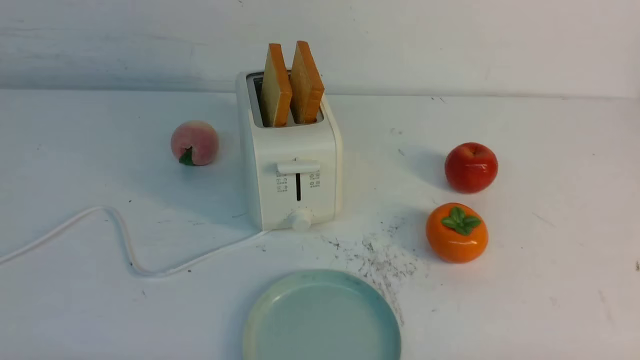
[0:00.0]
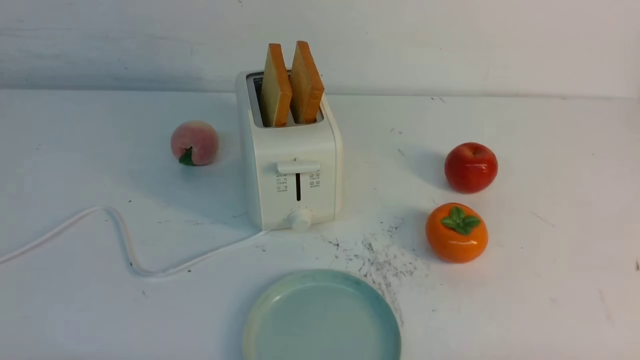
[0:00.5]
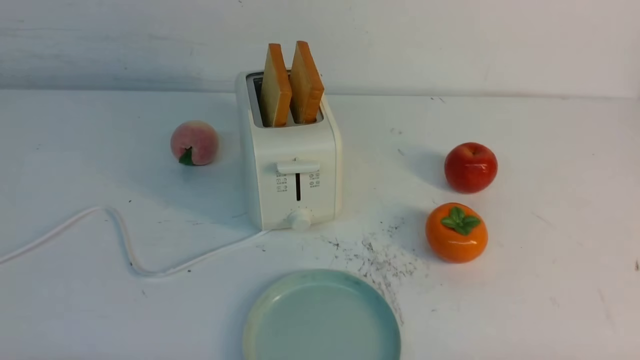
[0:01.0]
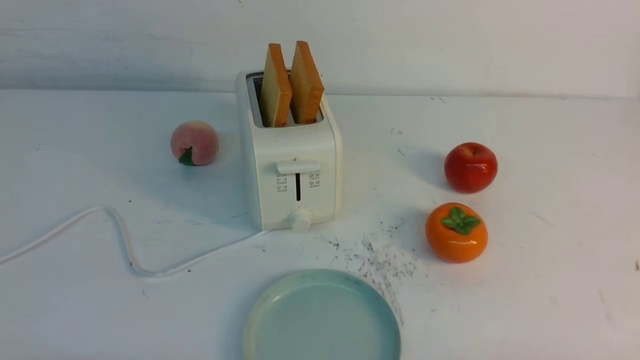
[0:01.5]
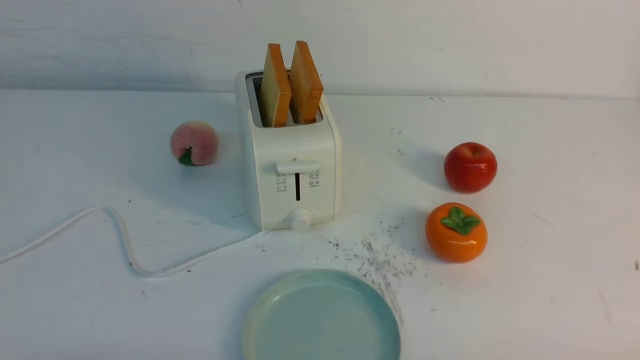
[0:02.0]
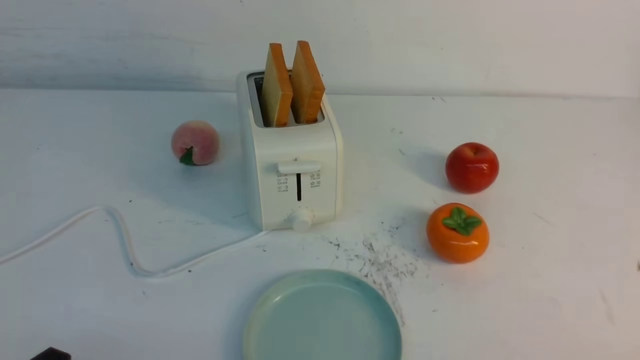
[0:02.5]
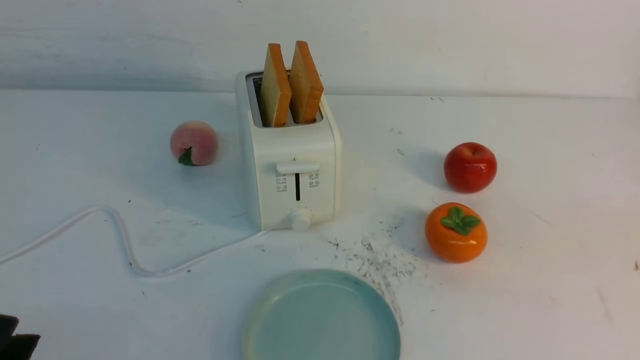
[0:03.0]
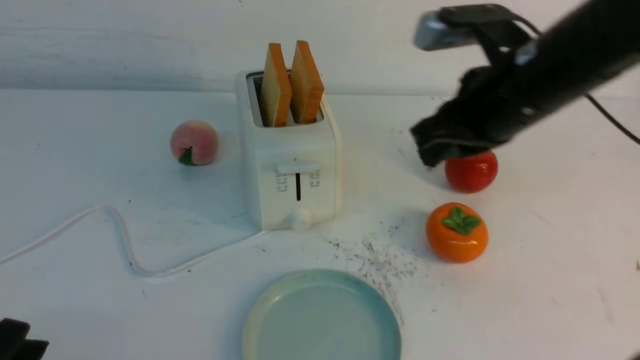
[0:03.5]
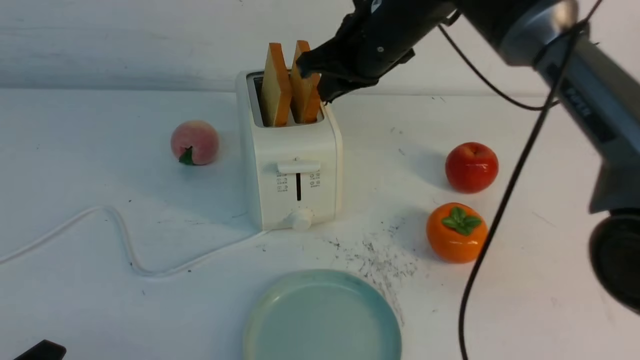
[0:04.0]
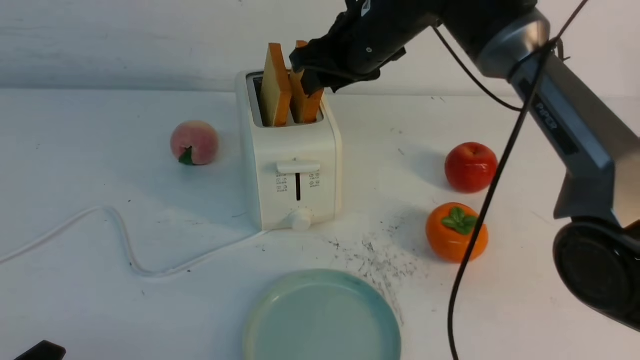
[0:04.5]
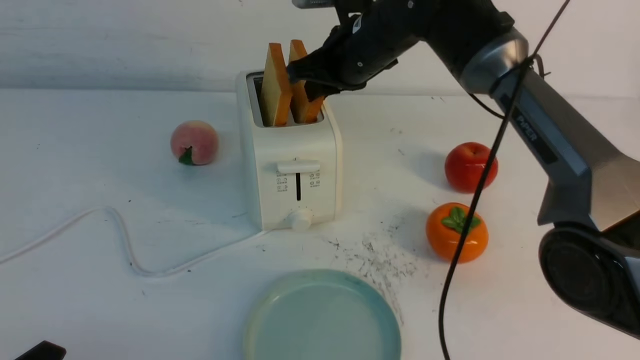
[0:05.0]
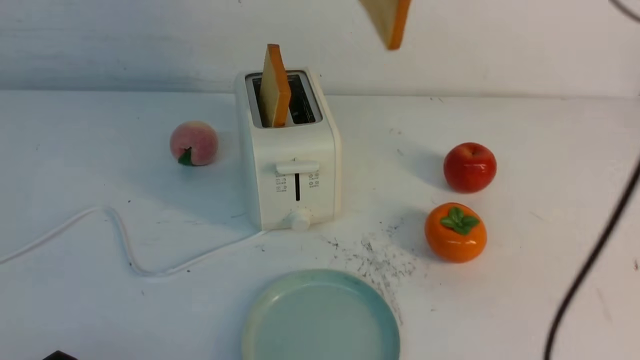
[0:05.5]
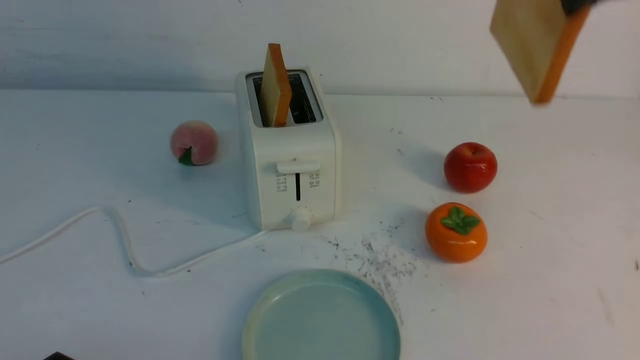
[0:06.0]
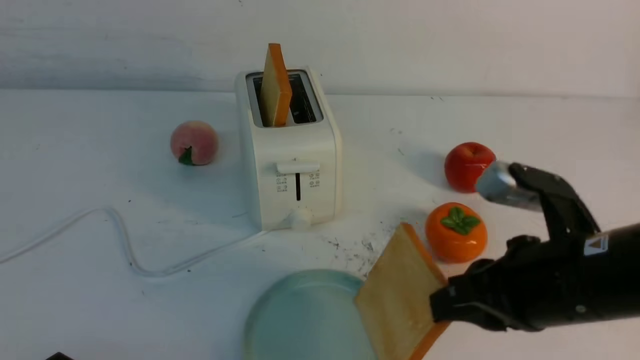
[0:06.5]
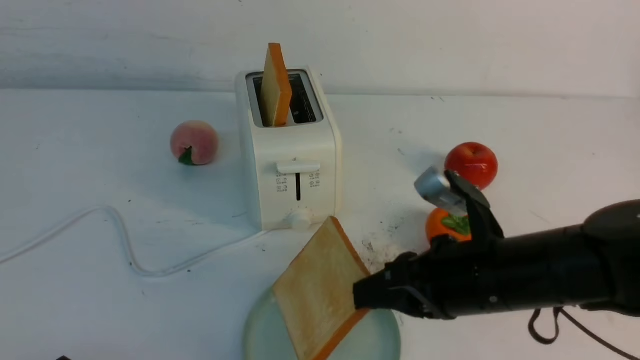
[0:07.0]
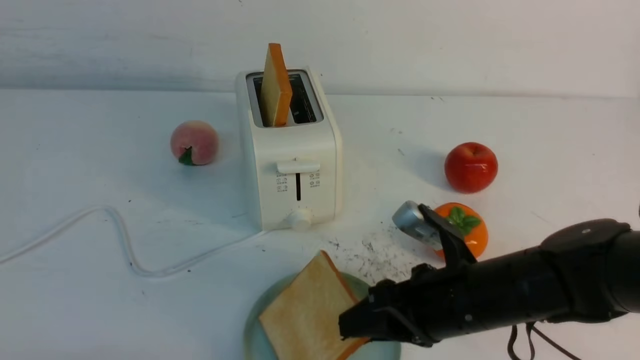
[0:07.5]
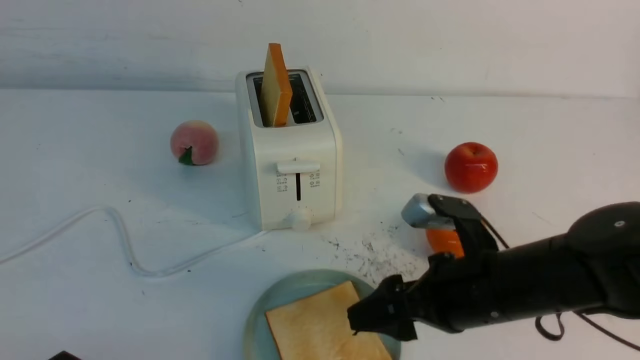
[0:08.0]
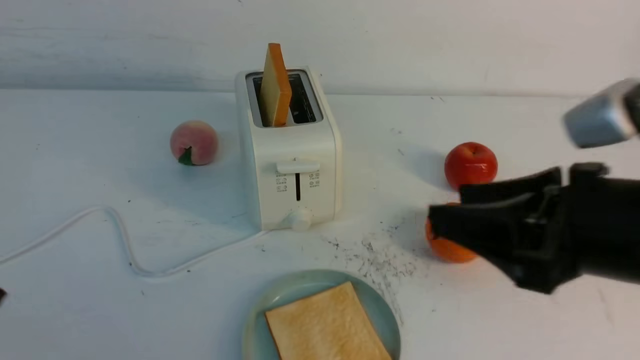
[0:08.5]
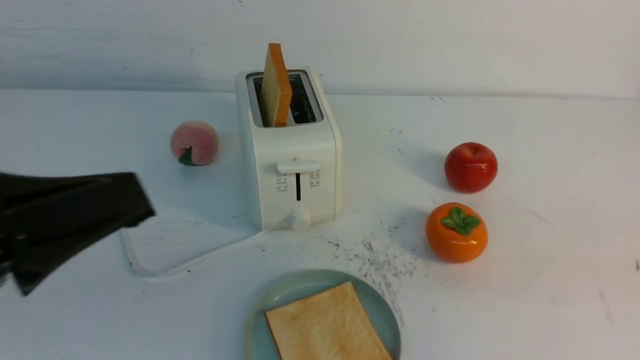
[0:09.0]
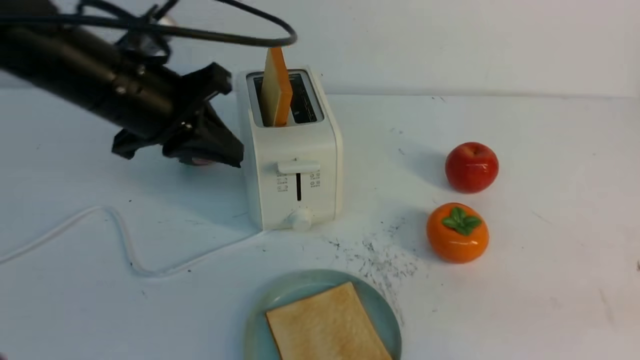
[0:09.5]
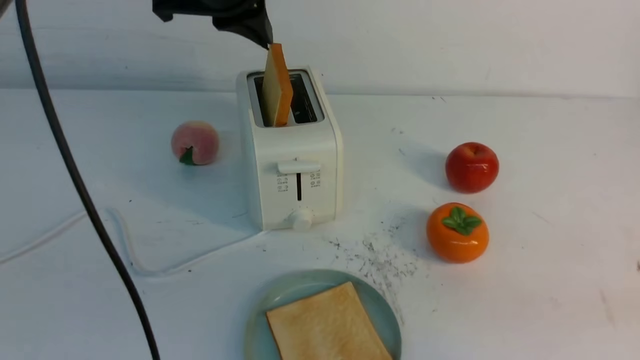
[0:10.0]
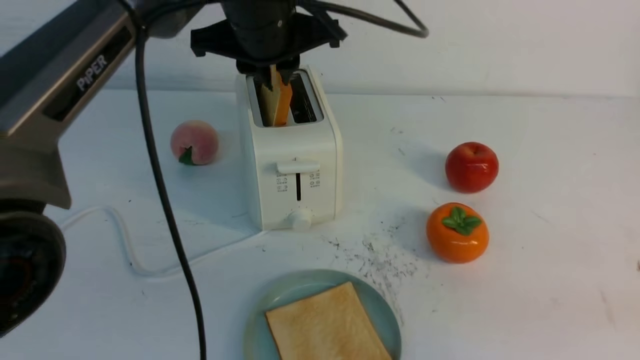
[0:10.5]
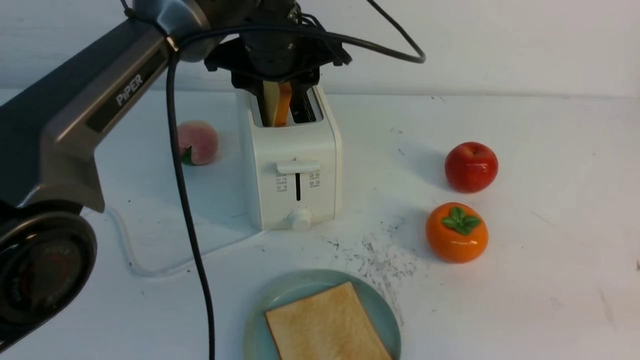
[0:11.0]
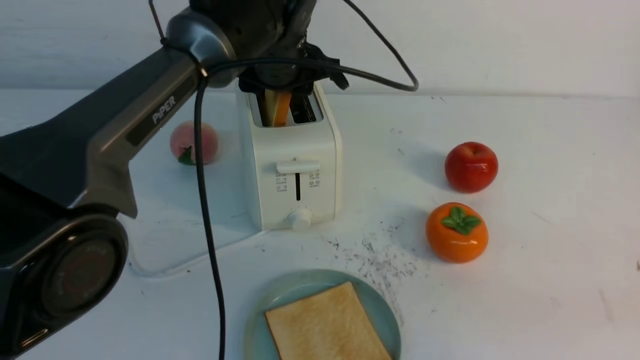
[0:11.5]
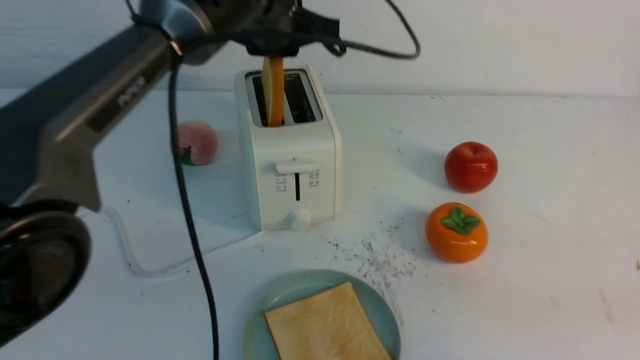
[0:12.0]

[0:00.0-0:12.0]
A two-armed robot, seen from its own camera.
Task of the whole recording: take toasted bread from bread machine on white table place on plate.
Step, 0:00.0 to 0:05.0: use the right arm to take out a slice of bread.
Step, 0:05.5 to 0:08.0: use the right arm to put a slice of bread into the plate.
Step, 0:08.5 to 0:12.0: use the left arm to take out a slice of bread.
0:02.0 to 0:04.0: The right gripper goes some 50 cm forward, to the left and upward.
0:04.0 to 0:06.0: The right gripper moves backward, to the right and upward, approximately 25 cm, and opens, then closes again.
0:06.0 to 0:08.0: The right gripper travels downward by some 25 cm, and opens up.
0:08.0 to 0:10.0: The right gripper shifts roughly 25 cm to the right, backward and upward, and closes up. Meanwhile the left gripper moves forward, upward and to the right, approximately 40 cm, and closes its fingers.
0:10.0 to 0:12.0: The left gripper moves about 10 cm downward and comes back, and opens, then closes once more.

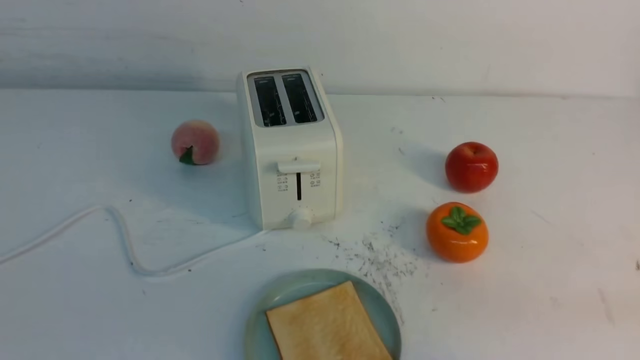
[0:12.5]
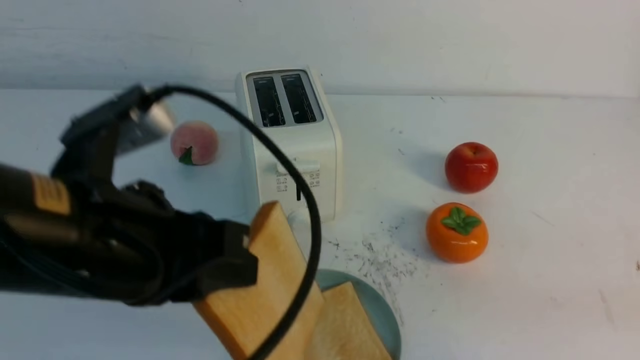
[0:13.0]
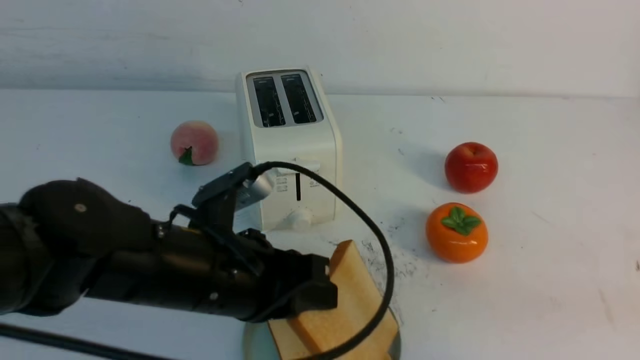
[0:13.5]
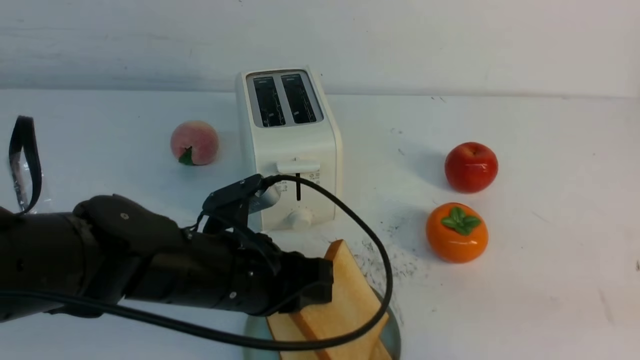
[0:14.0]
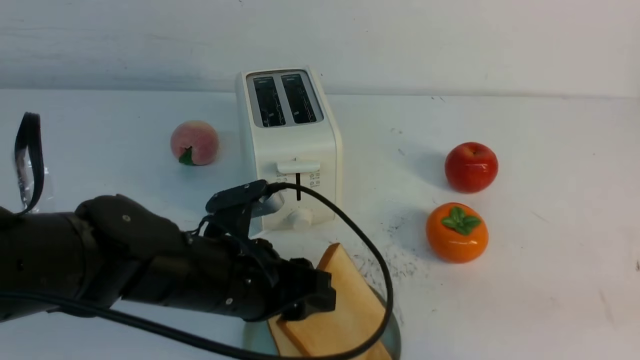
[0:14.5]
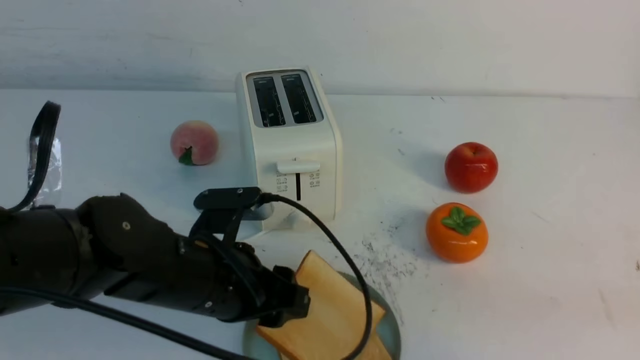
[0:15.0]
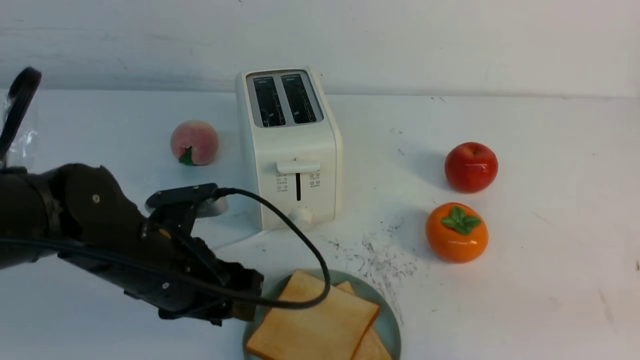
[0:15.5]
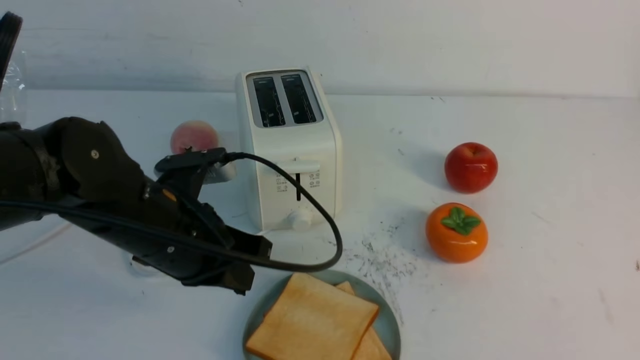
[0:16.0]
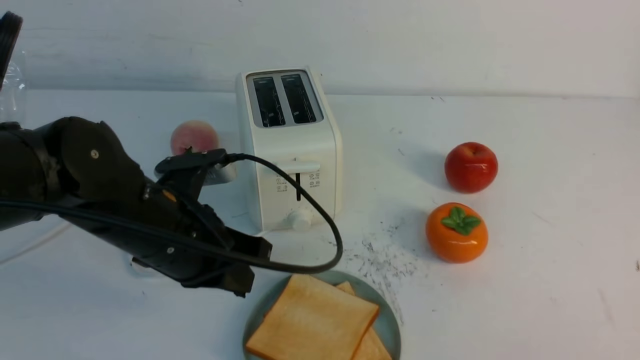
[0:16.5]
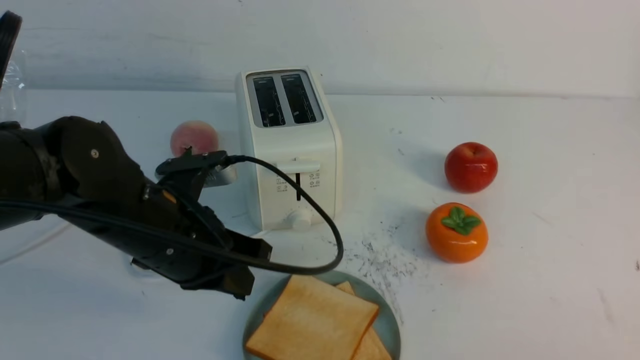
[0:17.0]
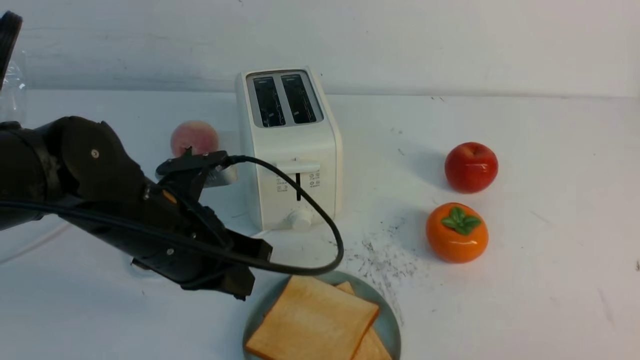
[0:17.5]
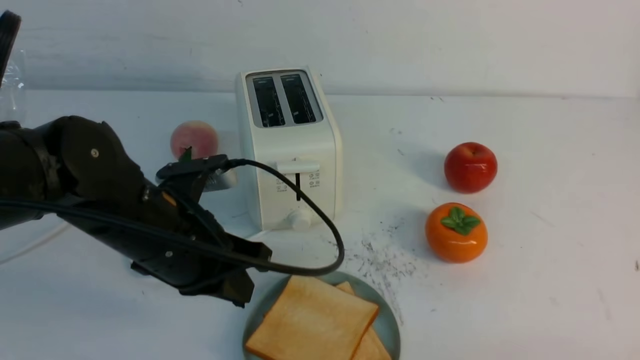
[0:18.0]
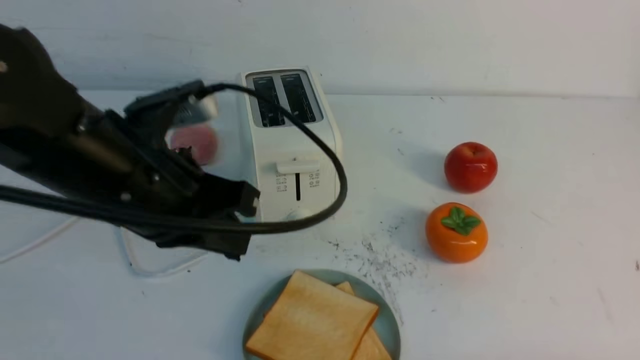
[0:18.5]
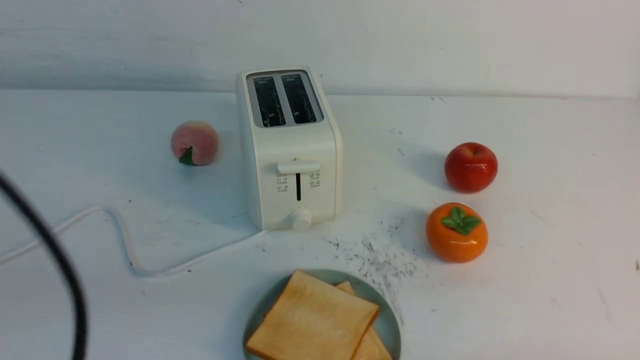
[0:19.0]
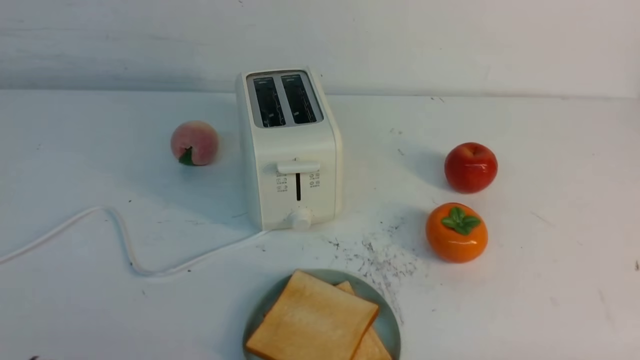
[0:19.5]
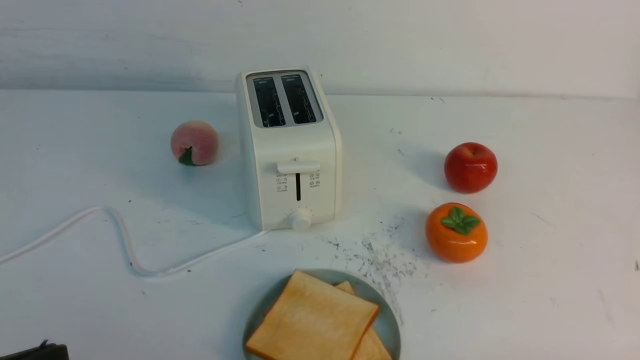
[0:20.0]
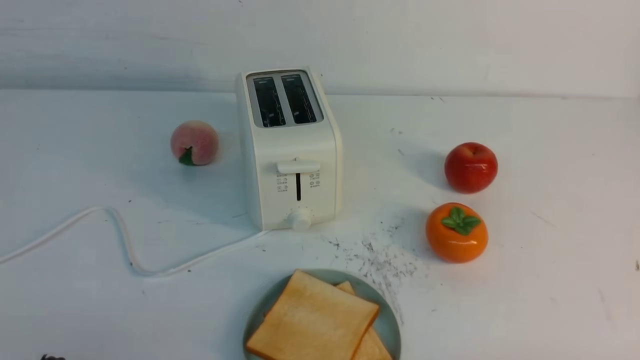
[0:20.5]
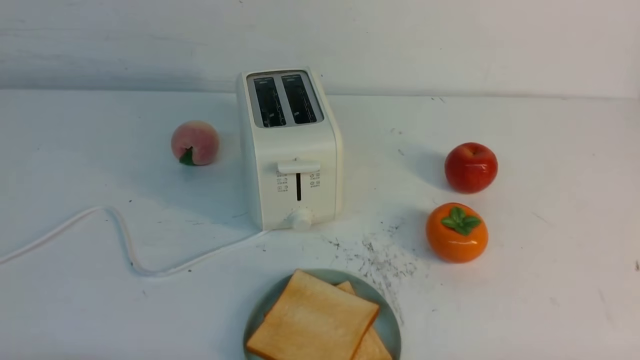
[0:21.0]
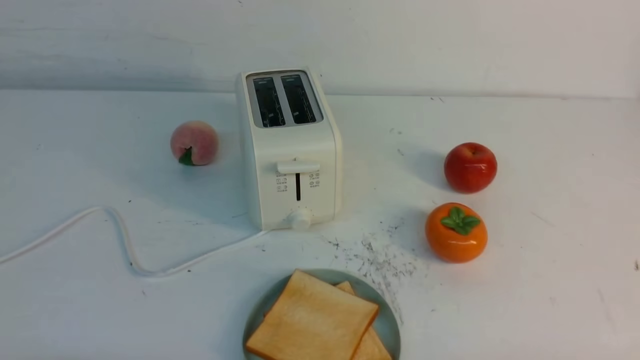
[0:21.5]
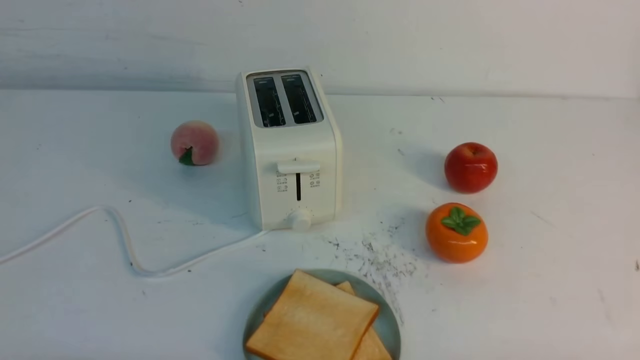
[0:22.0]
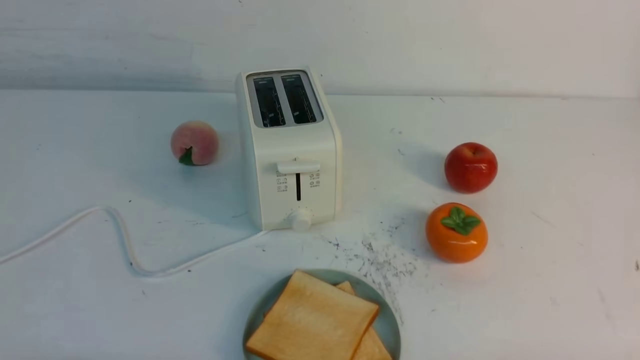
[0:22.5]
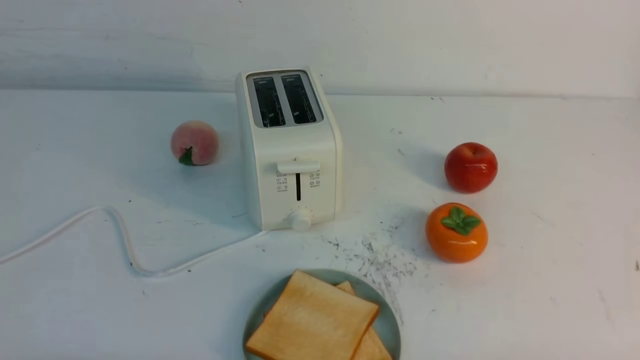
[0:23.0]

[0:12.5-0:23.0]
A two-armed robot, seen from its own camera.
Task of the whole recording: take toasted bread from bread machine on white table place on plate.
Step, 0:12.5 to 0:15.0: use the left arm to put a slice of bread into the empty plate.
0:12.5 to 0:14.5: The left gripper heads downward, covering about 35 cm, and opens up.
0:14.5 to 0:16.5: The right gripper travels backward by about 10 cm; the left gripper shifts by some 5 cm, and closes.
0:16.5 to 0:19.0: The right gripper heads downward, covering roughly 15 cm; the left gripper moves backward, upward and to the left, approximately 25 cm.
0:19.0 to 0:21.0: The left gripper moves downward, some 20 cm.
0:21.0 to 0:23.0: Neither gripper changes place.
